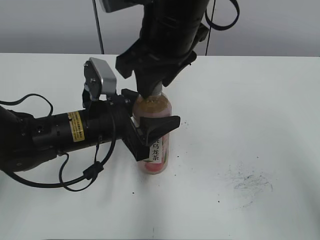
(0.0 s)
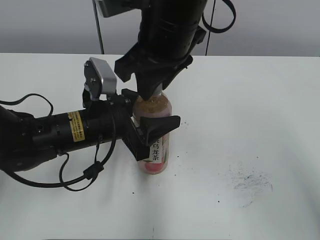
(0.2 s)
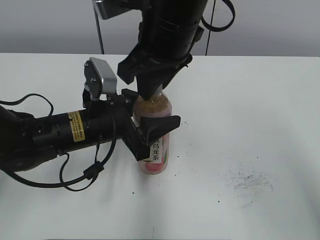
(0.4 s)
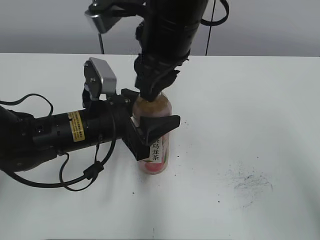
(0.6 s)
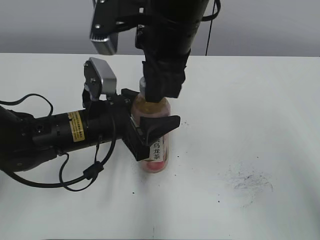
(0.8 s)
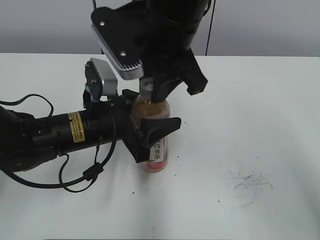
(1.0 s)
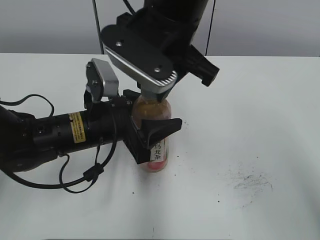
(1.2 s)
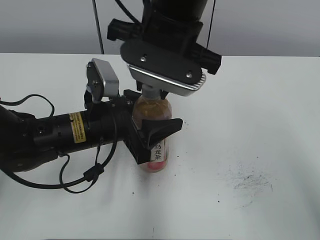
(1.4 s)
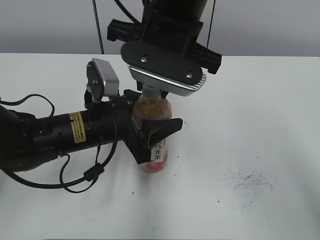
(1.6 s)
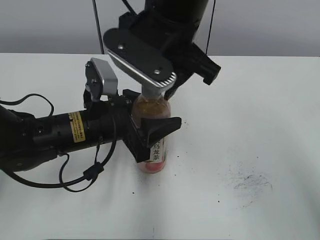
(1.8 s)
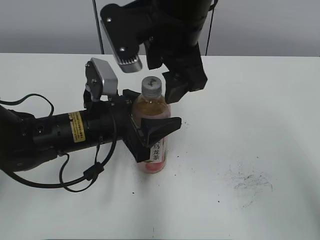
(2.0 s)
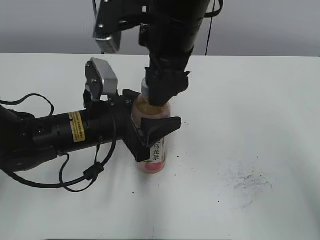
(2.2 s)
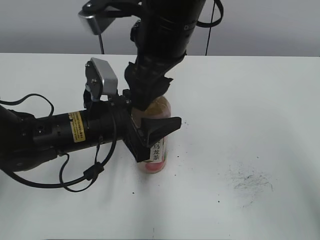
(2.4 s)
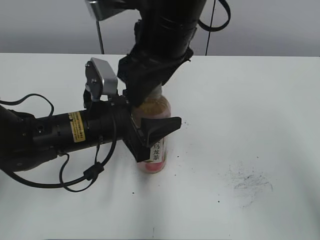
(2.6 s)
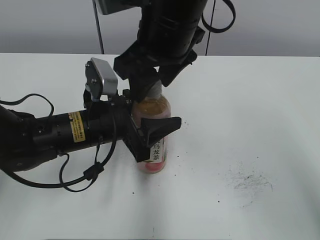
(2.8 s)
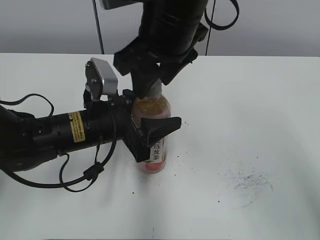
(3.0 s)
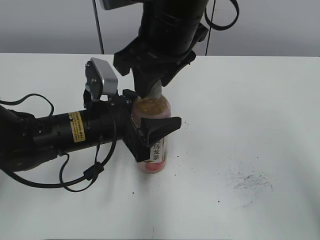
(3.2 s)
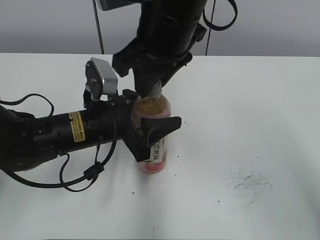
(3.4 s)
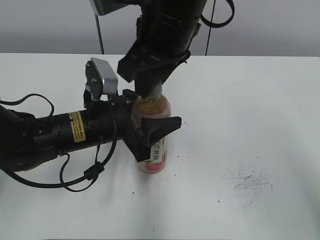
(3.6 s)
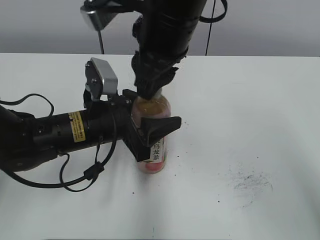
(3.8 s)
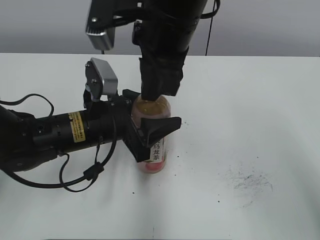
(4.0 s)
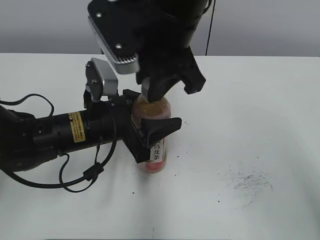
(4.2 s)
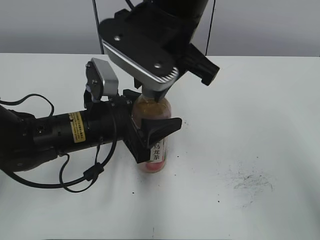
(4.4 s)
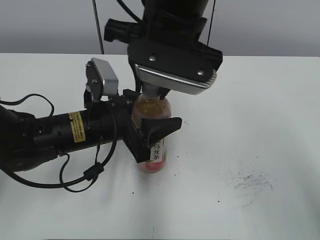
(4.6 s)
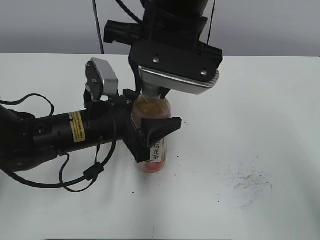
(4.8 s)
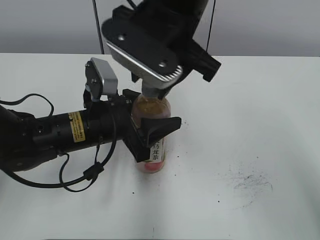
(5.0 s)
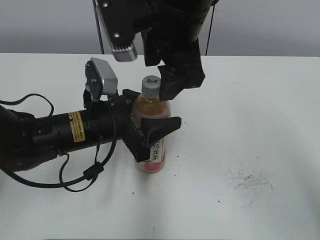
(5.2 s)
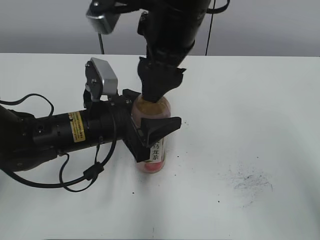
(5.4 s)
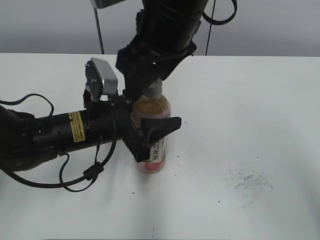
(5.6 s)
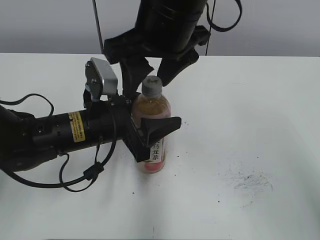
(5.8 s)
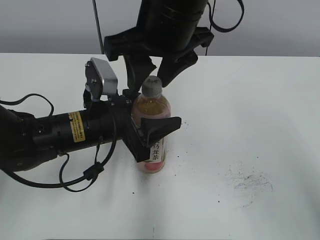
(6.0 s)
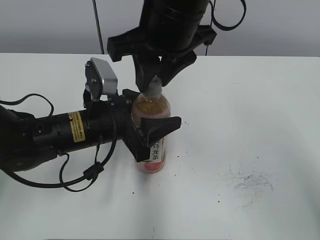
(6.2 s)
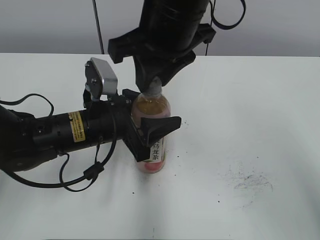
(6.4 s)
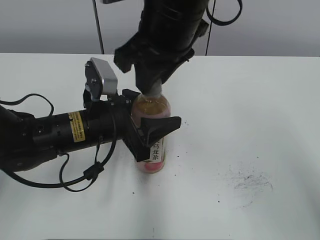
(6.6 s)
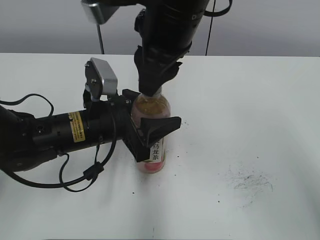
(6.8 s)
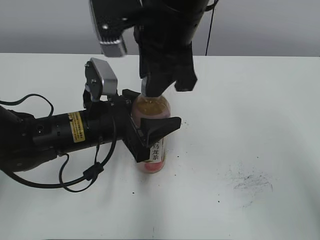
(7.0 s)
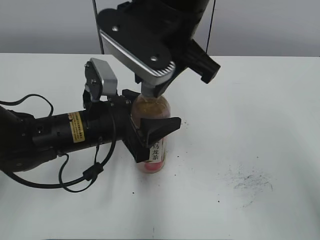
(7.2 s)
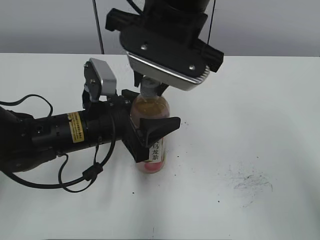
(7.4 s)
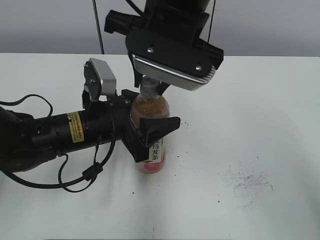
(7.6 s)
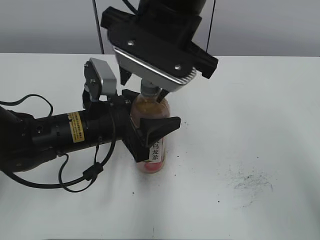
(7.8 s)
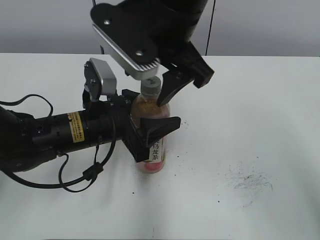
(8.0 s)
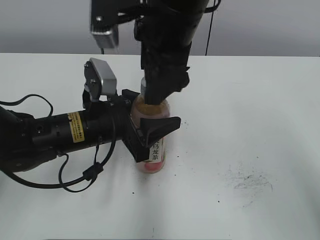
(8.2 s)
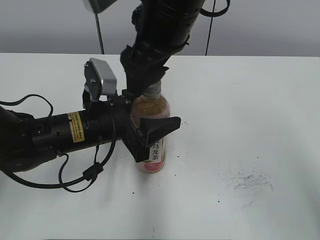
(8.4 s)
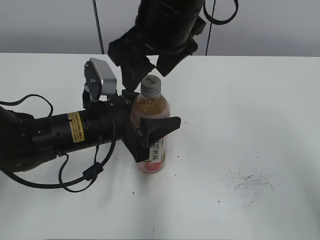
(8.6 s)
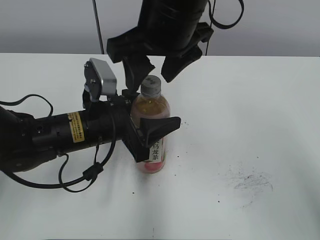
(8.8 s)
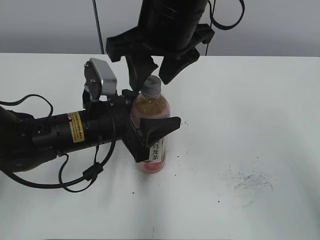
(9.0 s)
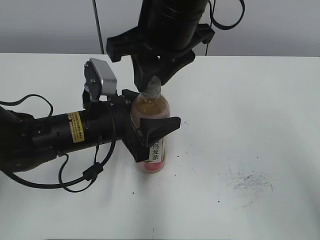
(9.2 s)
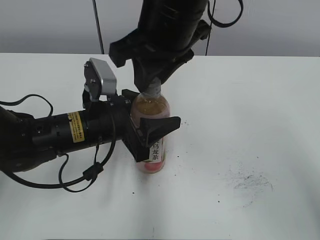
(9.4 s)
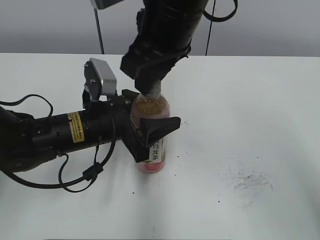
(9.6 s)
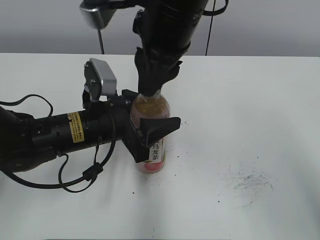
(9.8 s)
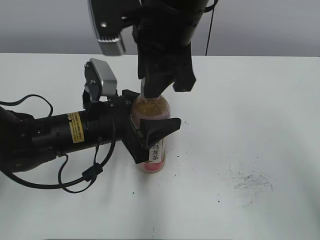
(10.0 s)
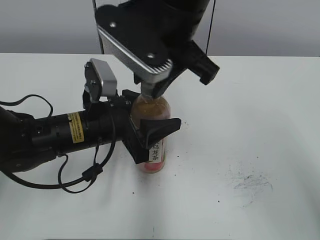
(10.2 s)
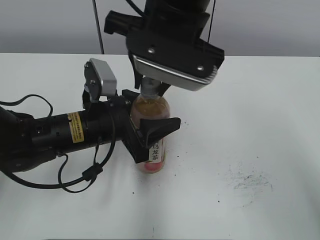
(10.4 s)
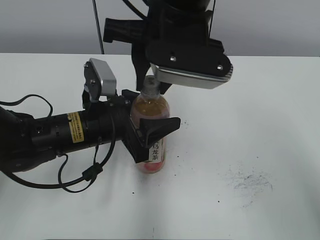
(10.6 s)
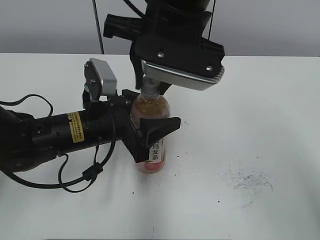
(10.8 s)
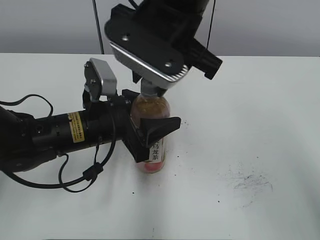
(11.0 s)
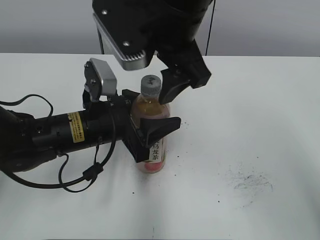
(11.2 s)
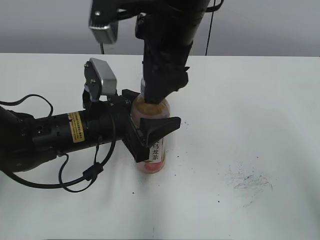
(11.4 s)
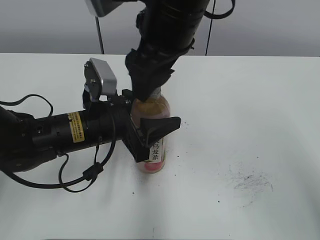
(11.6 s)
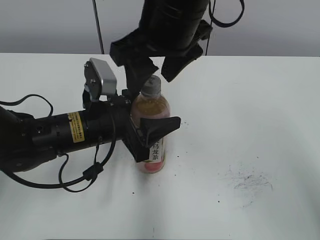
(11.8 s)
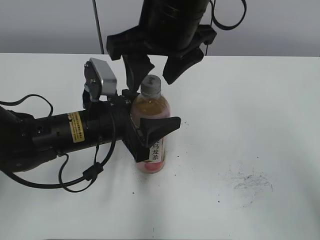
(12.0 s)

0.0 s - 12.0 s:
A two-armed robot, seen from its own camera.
1.6 s - 3.0 s: The right gripper opens up.
3.0 s - 4.4 s: The right gripper closes its fingers.
4.4 s - 6.0 s: The right gripper opens its fingers.
6.0 s - 7.6 s: The right gripper closes its fingers.
7.6 s - 9.0 s: The right gripper opens.
9.0 s - 10.4 s: The right gripper closes.
10.4 s - 12.0 s: The right gripper opens.

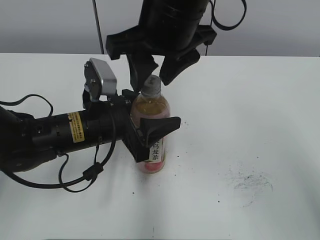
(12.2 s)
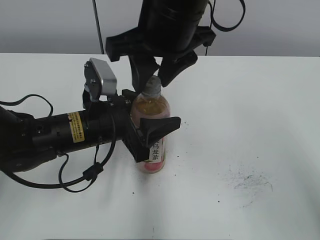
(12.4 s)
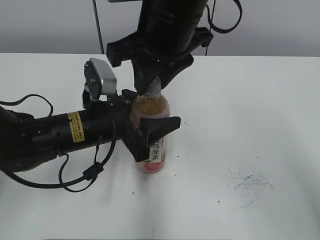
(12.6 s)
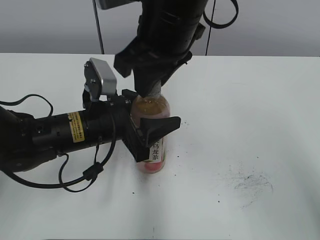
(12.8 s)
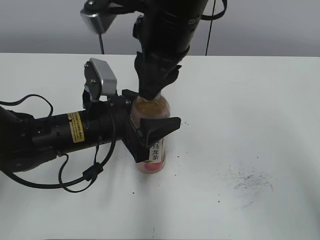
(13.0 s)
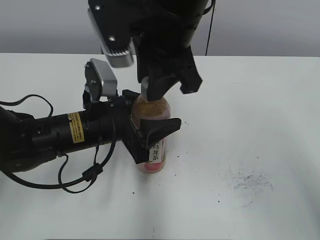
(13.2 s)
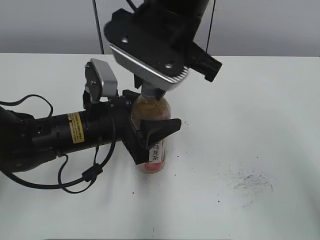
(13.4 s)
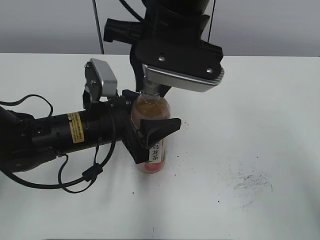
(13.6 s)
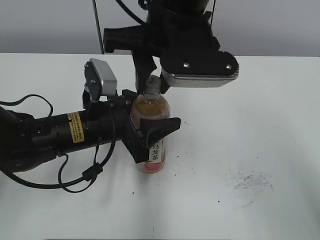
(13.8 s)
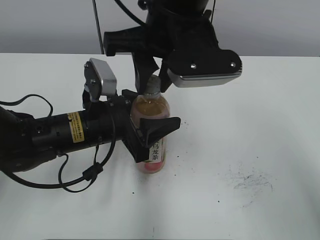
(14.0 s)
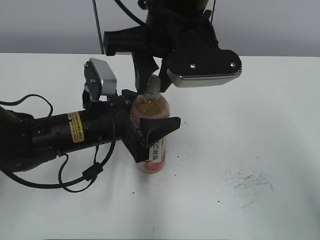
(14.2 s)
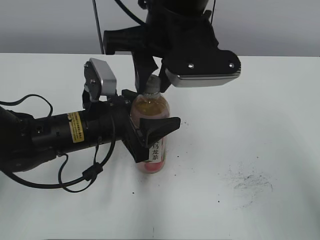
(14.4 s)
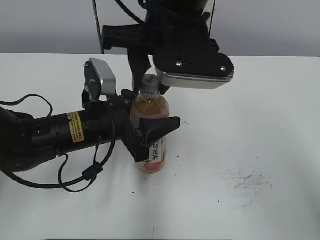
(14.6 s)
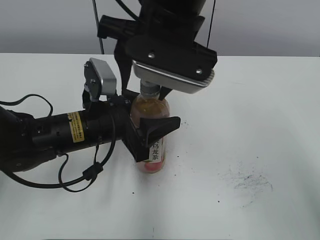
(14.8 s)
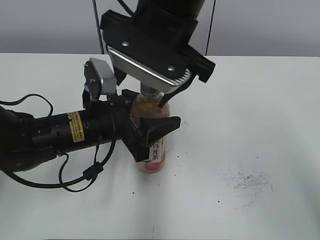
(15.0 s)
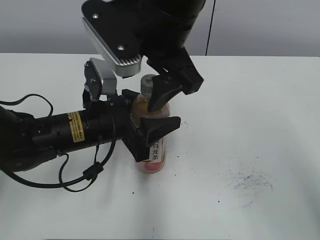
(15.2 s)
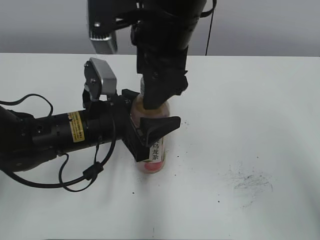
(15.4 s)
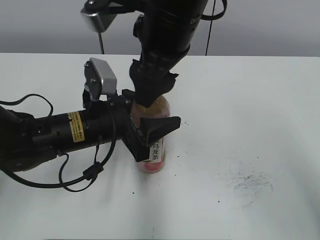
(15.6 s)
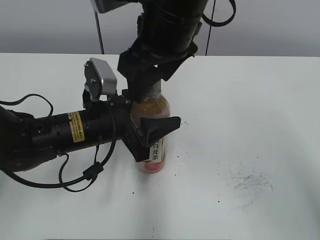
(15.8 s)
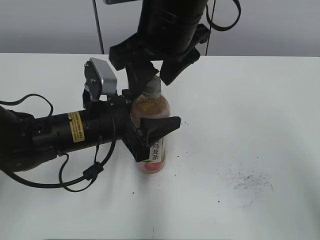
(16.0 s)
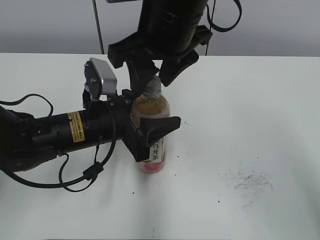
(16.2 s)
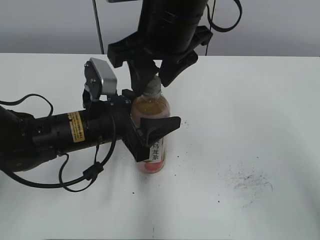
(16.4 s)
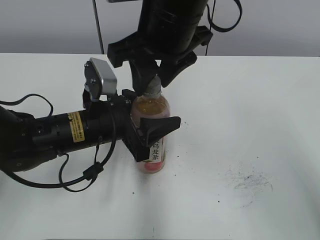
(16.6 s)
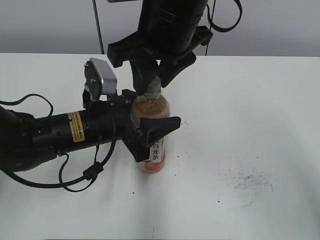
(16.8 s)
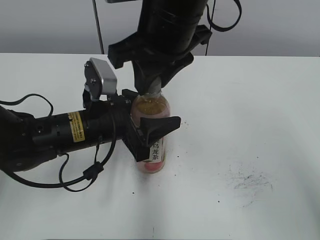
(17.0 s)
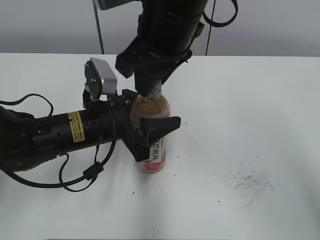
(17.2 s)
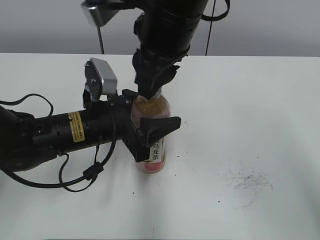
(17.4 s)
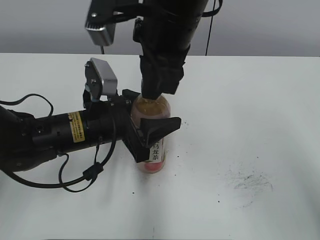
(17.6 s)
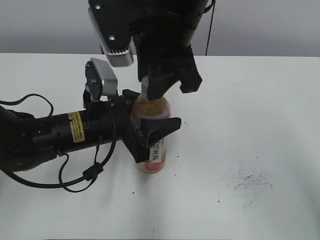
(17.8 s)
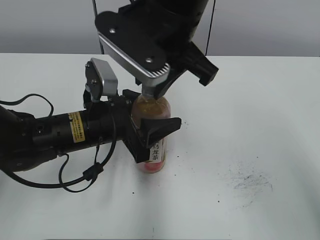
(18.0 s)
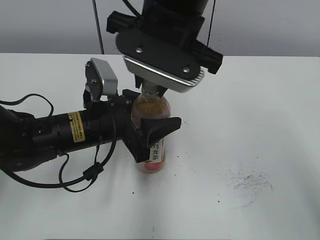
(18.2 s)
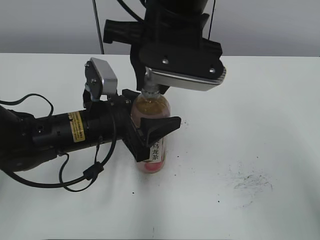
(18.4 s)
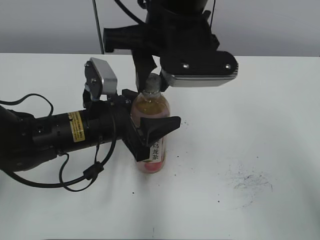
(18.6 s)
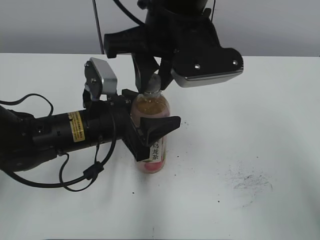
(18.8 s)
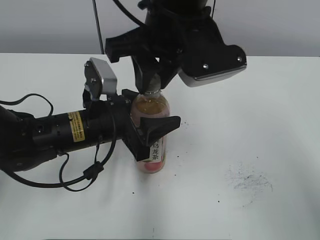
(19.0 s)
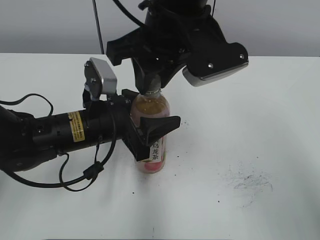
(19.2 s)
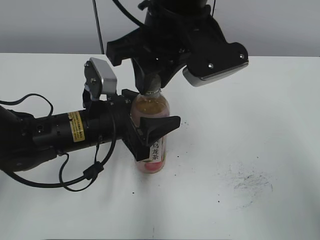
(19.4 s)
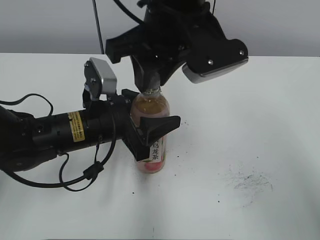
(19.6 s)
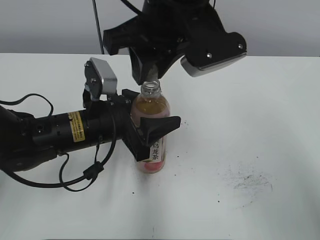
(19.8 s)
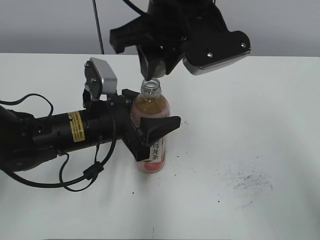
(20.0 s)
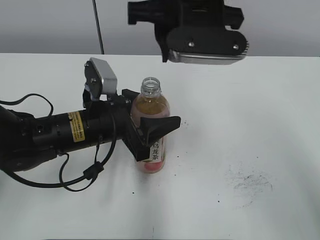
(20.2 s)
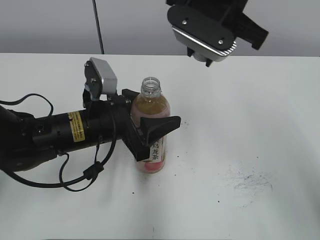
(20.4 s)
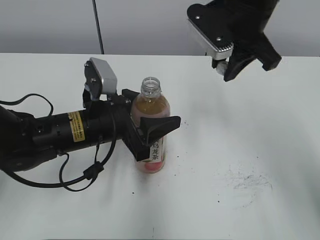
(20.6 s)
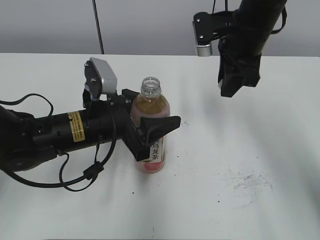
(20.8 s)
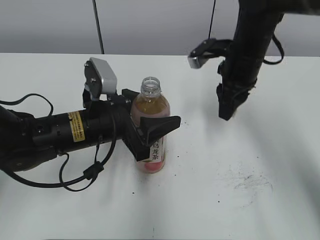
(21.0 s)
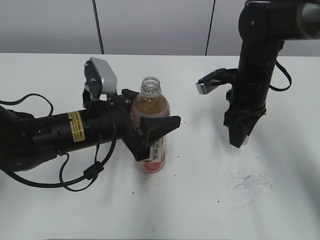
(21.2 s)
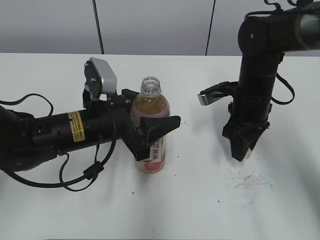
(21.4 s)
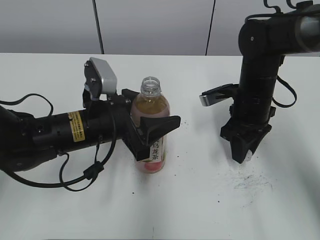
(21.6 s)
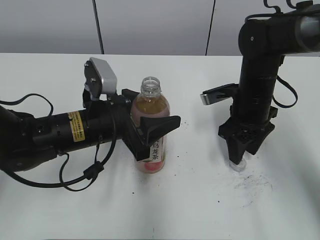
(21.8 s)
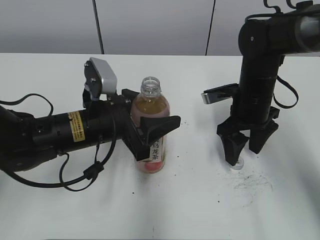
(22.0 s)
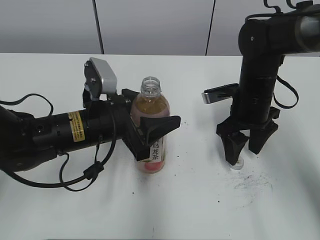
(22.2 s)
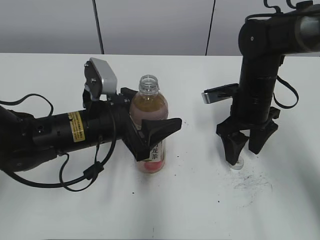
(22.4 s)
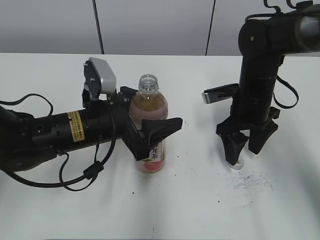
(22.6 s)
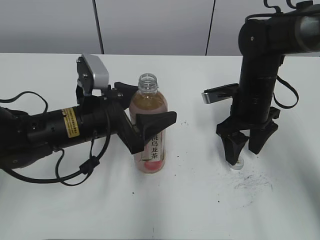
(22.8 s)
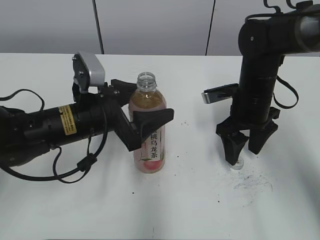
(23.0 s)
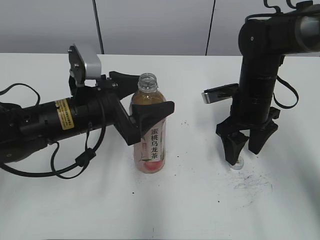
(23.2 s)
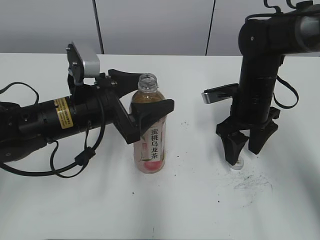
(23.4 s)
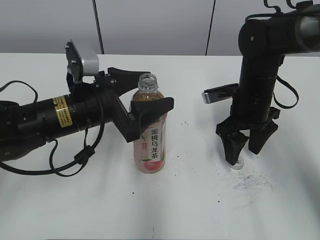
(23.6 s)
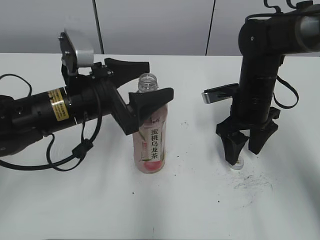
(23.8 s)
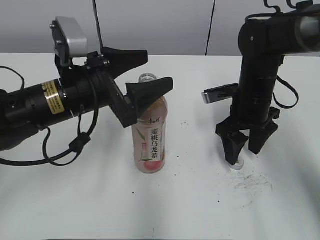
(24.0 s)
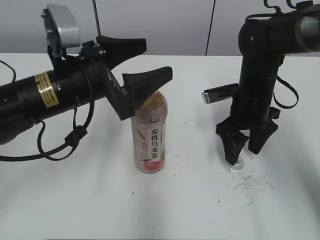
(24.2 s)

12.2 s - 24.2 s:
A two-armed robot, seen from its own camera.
Step, 19.6 s - 21.8 s: Place the bottle cap on the right.
Step, 22.0 s - 22.8 s: Place the Peach Oolong Tea with the left hand.
12.2 s - 13.8 s: The right gripper closes.
13.8 s - 15.2 s: The right gripper opens.
15.2 s - 16.6 s: The right gripper closes.
19.8 s - 21.2 s: The right gripper goes roughly 25 cm downward, to the right and forward.
21.2 s - 22.6 s: The right gripper opens.
22.6 s - 24.2 s: The left gripper heads upward, covering roughly 5 cm.
